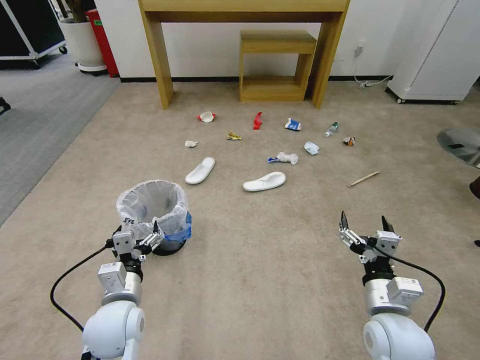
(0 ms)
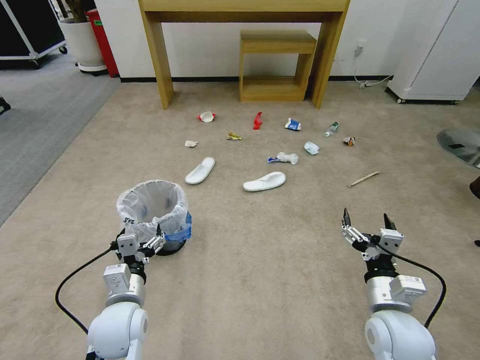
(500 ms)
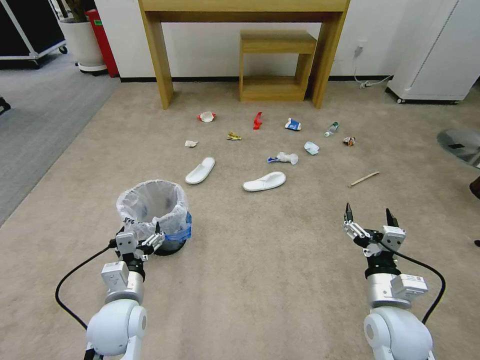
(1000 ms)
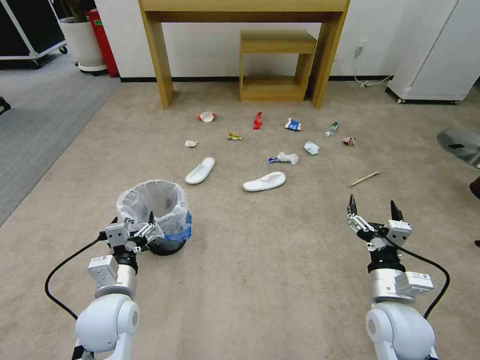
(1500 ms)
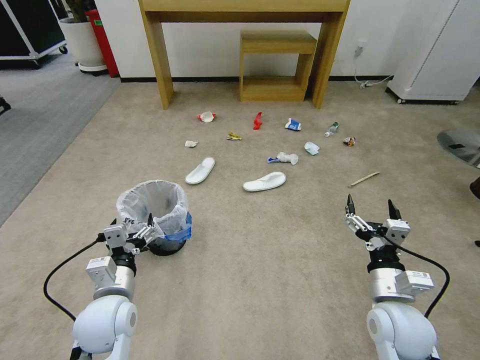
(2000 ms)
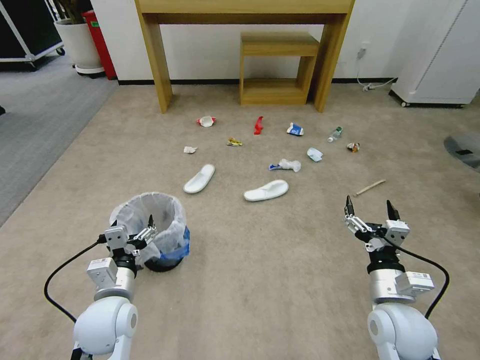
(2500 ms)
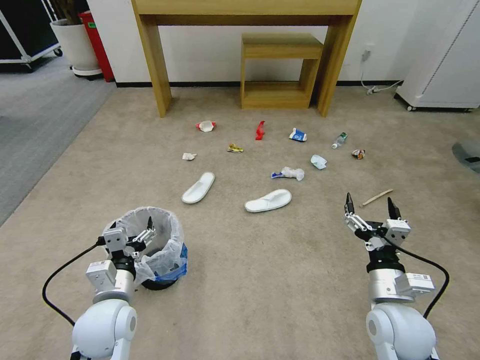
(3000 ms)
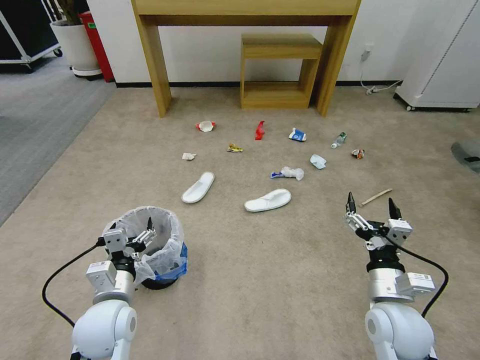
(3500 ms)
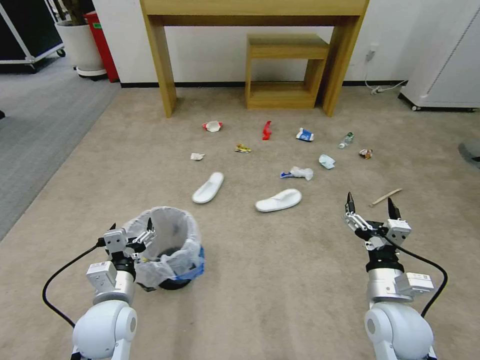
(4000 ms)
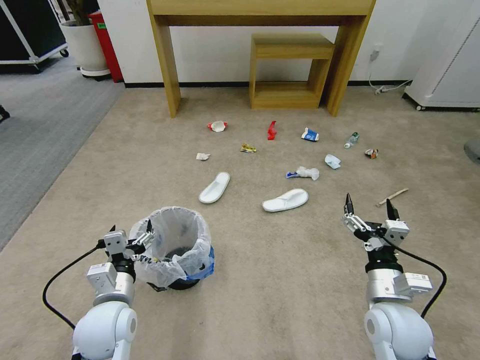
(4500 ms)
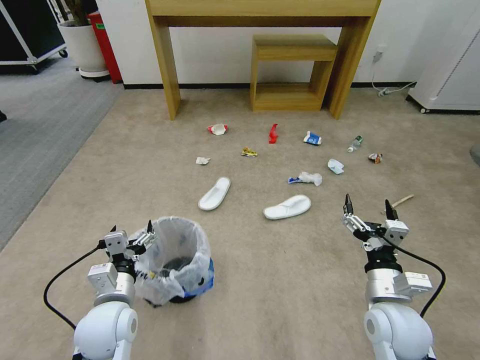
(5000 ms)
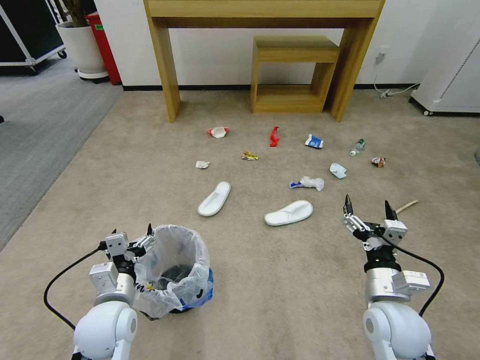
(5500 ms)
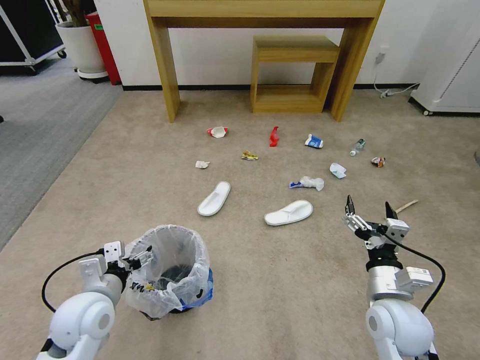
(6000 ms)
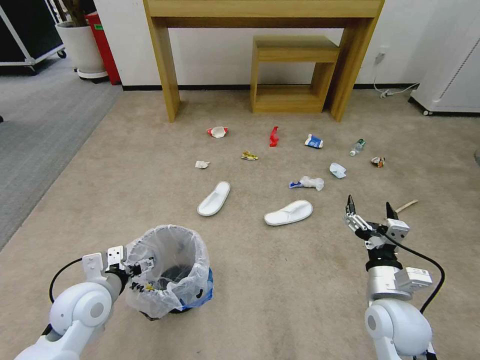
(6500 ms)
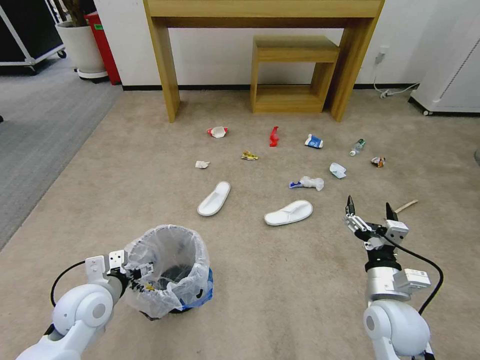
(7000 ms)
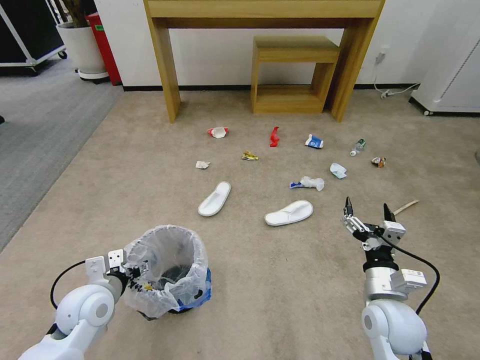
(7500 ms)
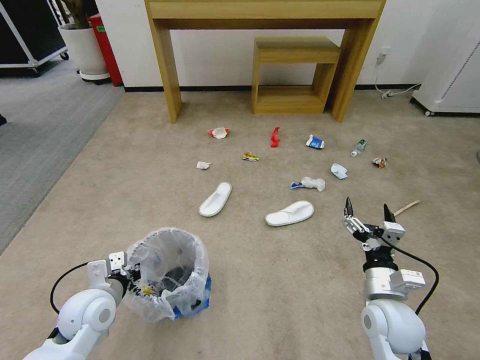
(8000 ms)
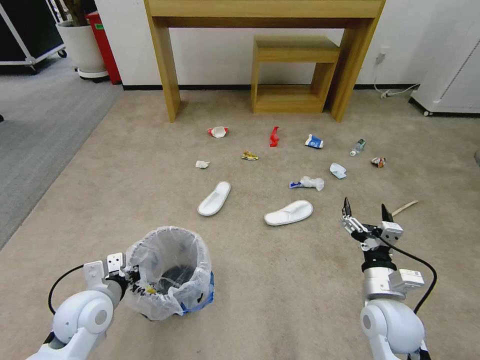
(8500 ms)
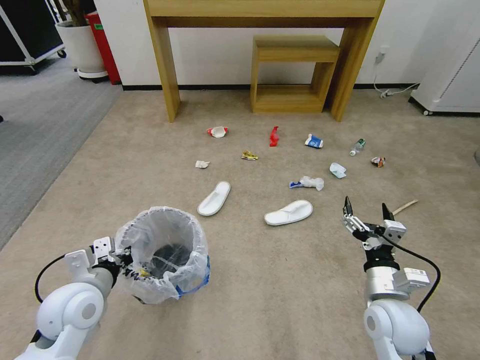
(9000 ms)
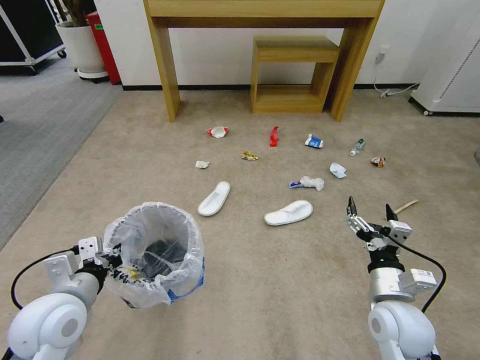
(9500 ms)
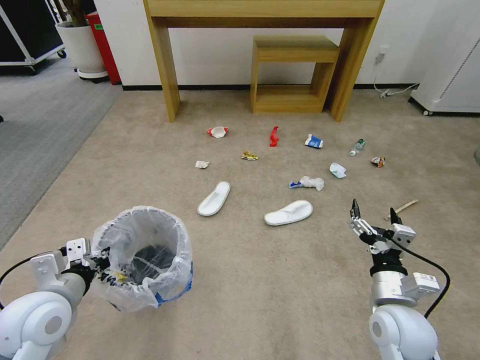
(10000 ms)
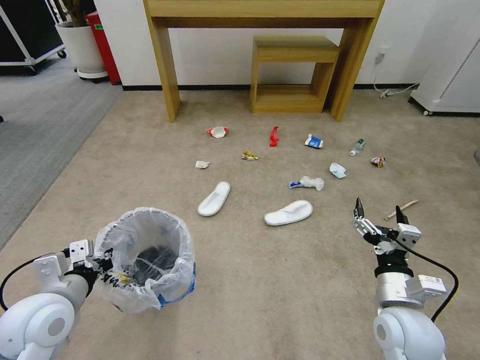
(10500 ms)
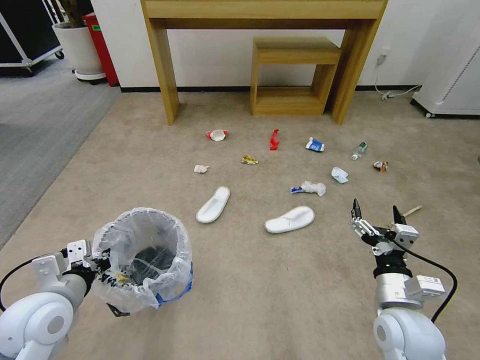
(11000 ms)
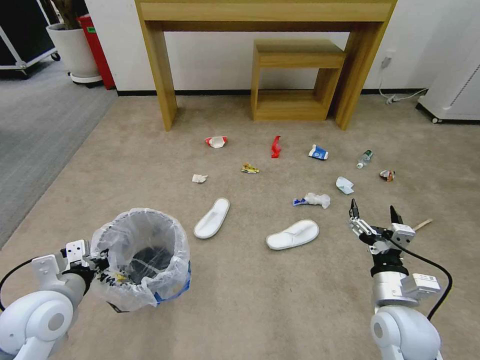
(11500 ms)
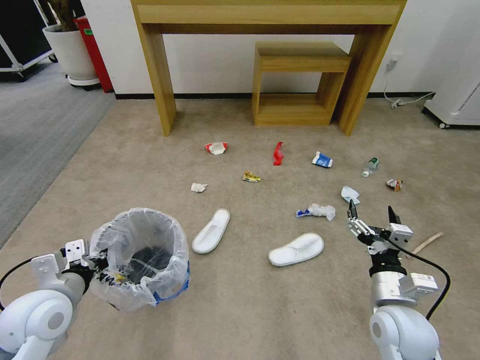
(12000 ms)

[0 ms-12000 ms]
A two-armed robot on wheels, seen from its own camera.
Task of the whole recording: Pick up the trash bin and place the garbage on the floor into it.
2000 ms to 4000 ms: Neither gripper changes place.
6000 ms to 8000 ms: The left gripper closes its fingers.
8000 ms to 10000 ms: The left gripper is displaced upward by roughly 10 cm.

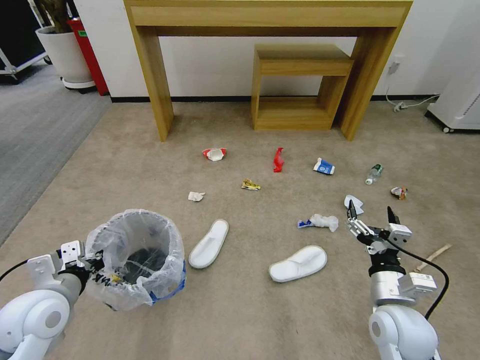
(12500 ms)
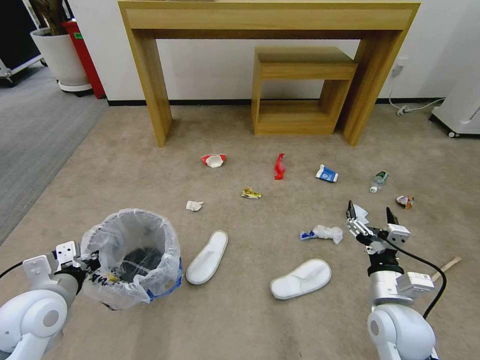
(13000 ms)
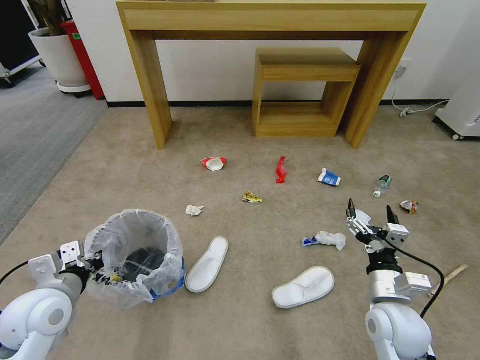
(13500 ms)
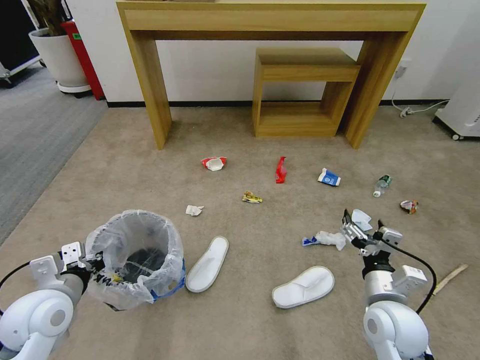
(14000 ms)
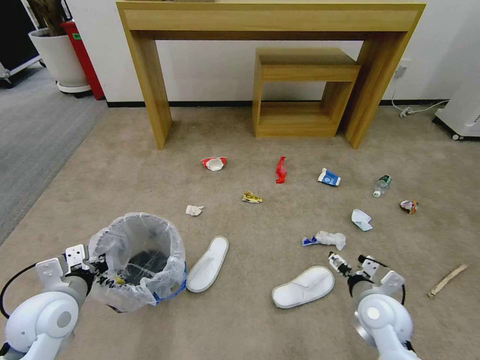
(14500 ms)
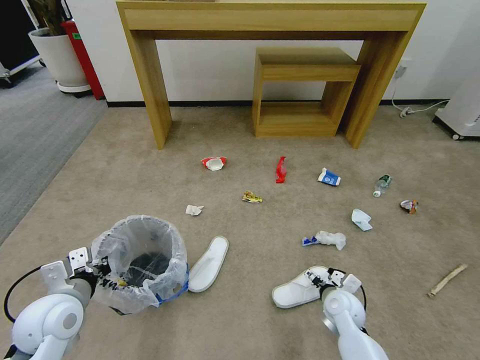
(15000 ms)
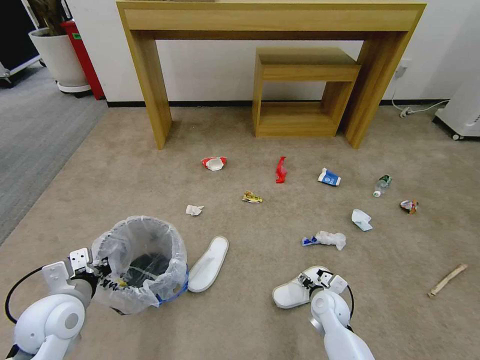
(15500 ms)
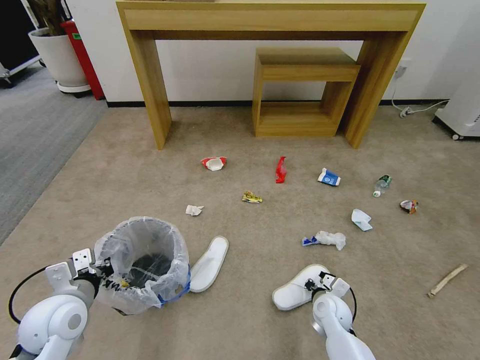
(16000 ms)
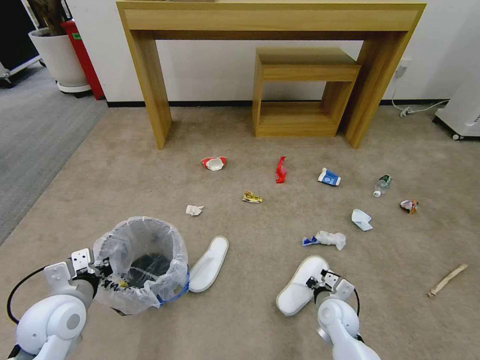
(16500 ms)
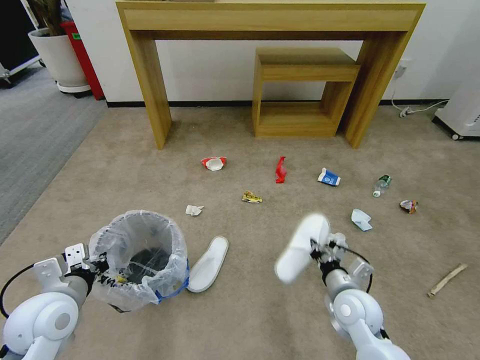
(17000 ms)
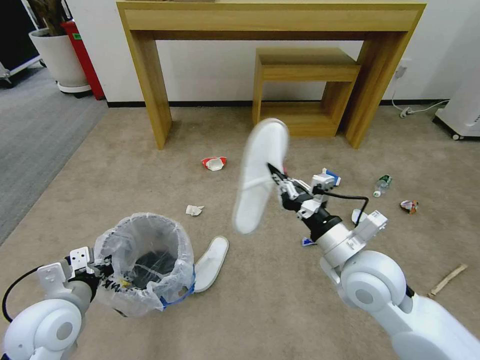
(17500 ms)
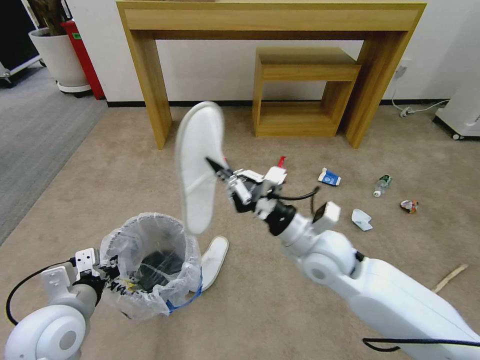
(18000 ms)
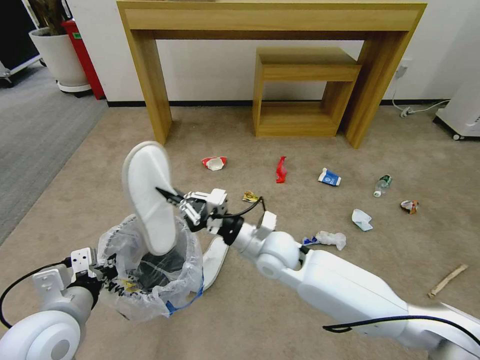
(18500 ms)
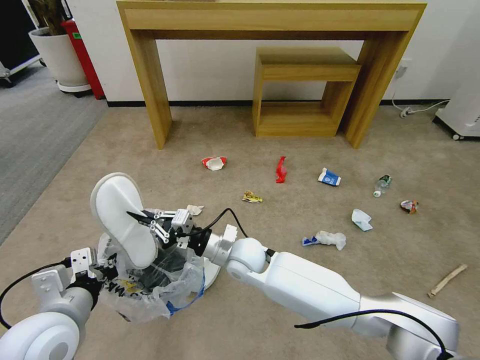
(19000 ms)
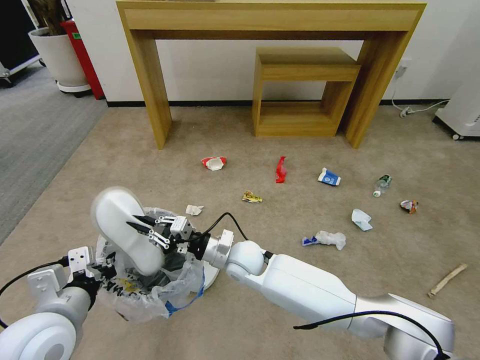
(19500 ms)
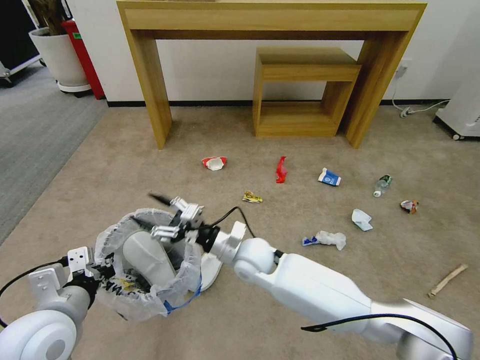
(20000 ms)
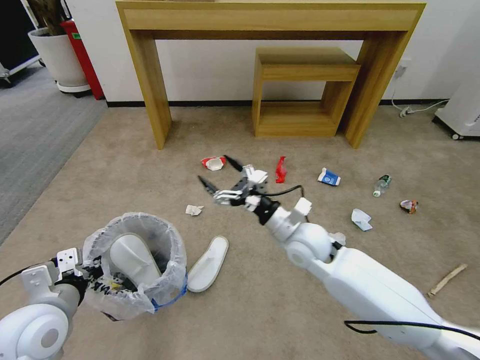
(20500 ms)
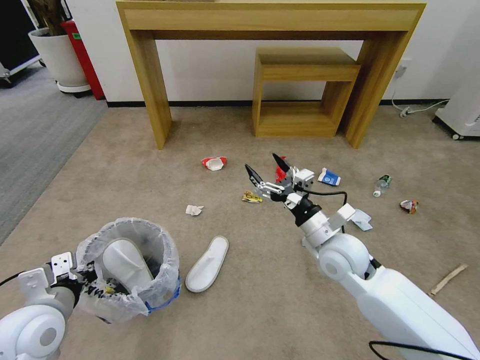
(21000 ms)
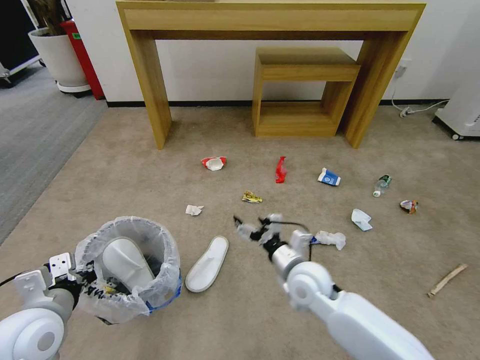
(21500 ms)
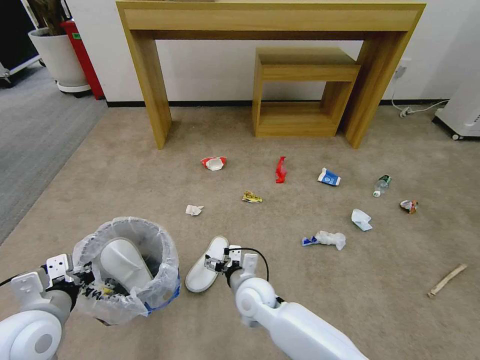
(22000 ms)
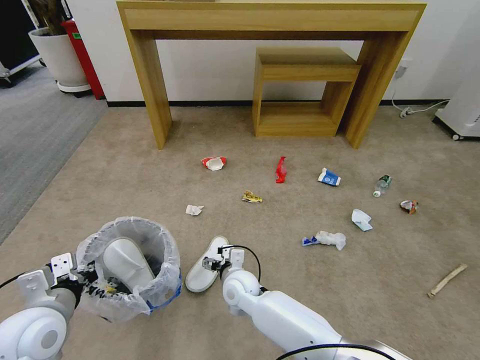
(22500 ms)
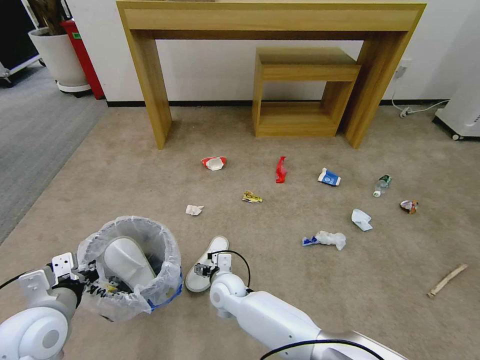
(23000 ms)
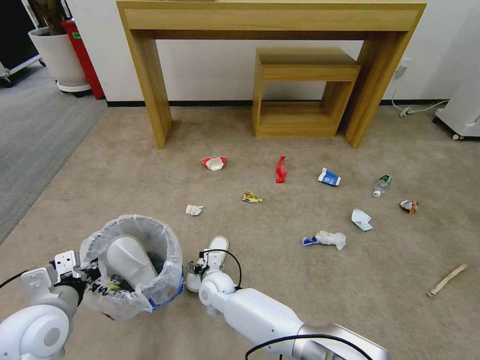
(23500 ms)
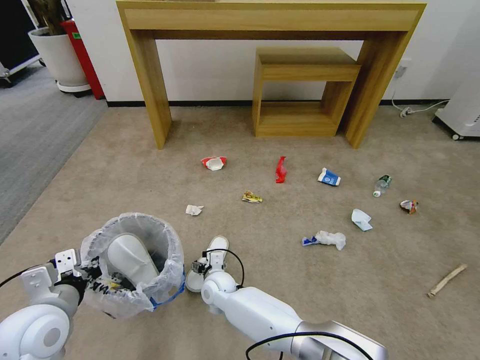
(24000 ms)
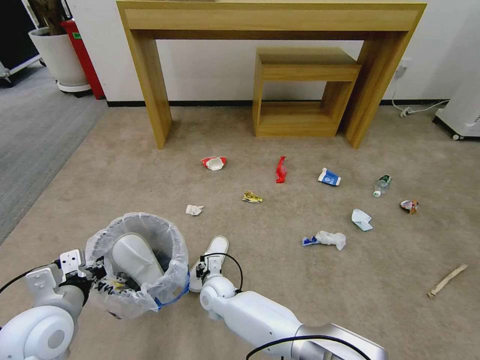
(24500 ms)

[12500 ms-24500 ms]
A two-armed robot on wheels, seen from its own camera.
Task of the whole recording: Pick up the trash bin and place the garbage on the floor into it.
12500 ms to 14500 ms: The right gripper heads downward, covering some 5 cm.
14500 ms to 16500 ms: The right gripper goes roughly 10 cm downward, and closes its fingers.
16500 ms to 18500 ms: The left gripper shifts about 5 cm upward. Meanwhile the right gripper is displaced upward and to the left by some 25 cm.
18500 ms to 20500 ms: The right gripper shifts approximately 10 cm to the right, and opens up.
20500 ms to 22500 ms: The right gripper is displaced downward and to the left by some 20 cm.
22500 ms to 24500 ms: The right gripper is displaced to the left and downward by about 10 cm, and closes its fingers.

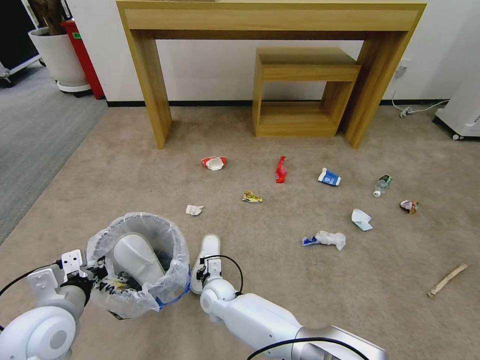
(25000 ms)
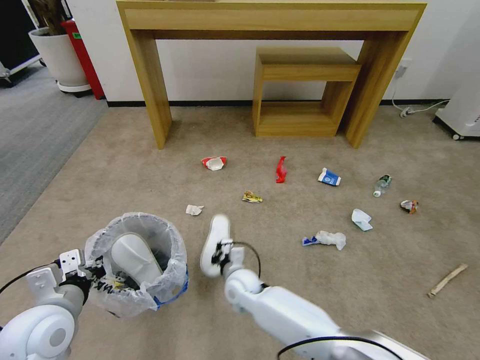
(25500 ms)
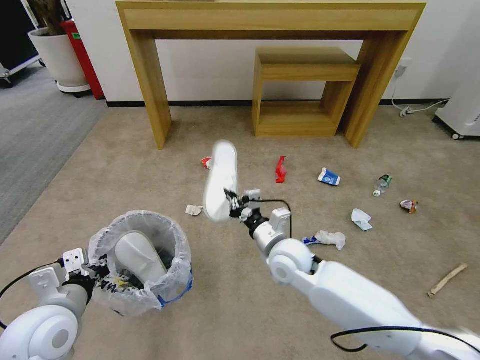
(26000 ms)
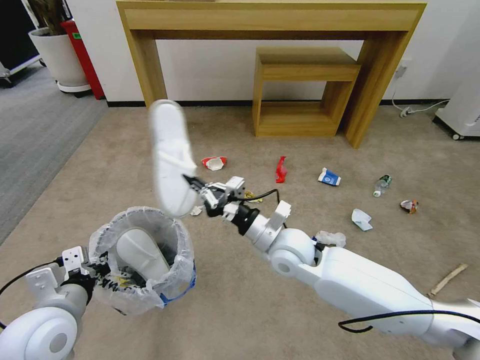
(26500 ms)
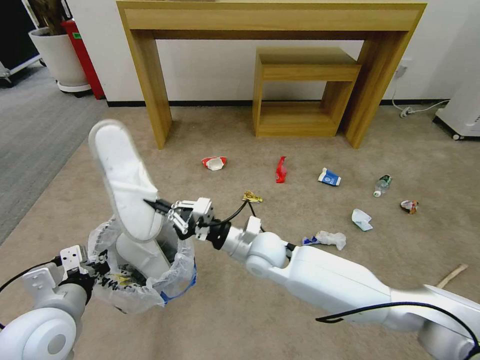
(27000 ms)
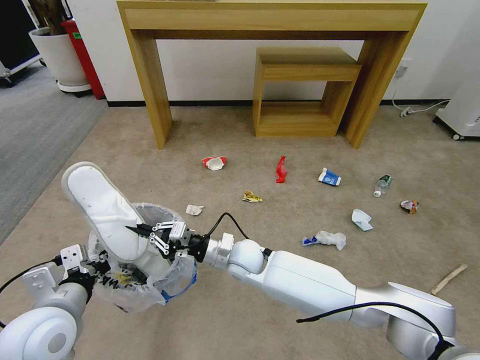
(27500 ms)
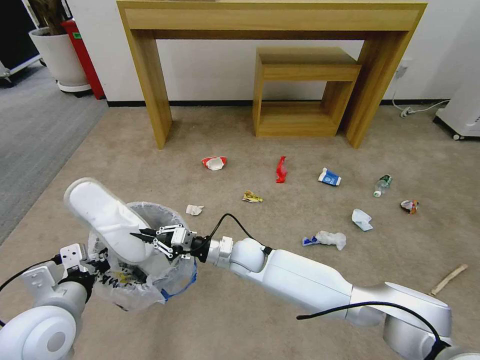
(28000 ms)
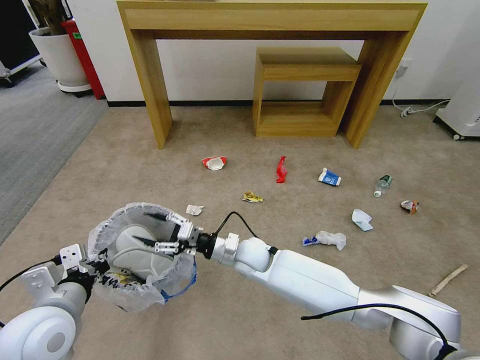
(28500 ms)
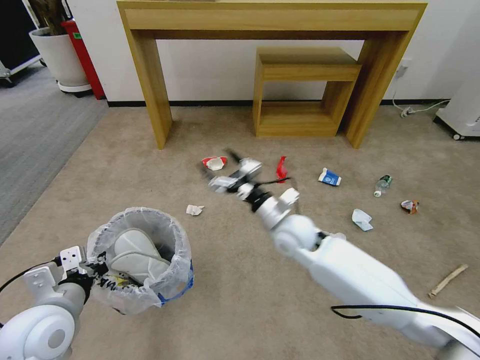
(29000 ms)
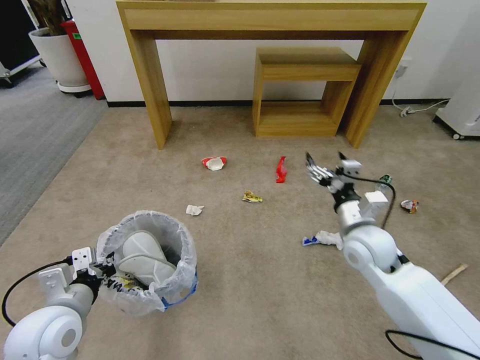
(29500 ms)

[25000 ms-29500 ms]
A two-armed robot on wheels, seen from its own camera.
Task of the whole recording: Pick up the trash bin and place the garbage on the floor into it.
25000 ms to 27000 ms: The right gripper shifts some 25 cm upward and to the right.
27000 ms to 29500 ms: The right gripper heads to the right, covering some 20 cm, and opens.
